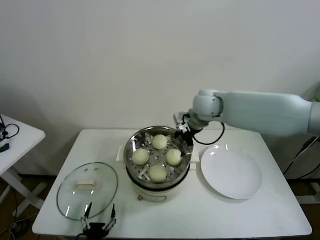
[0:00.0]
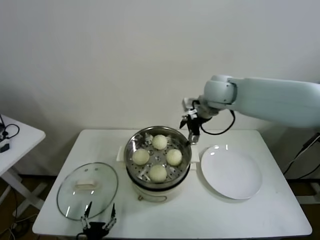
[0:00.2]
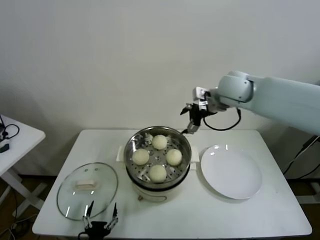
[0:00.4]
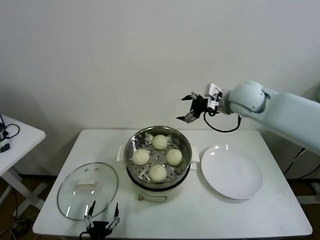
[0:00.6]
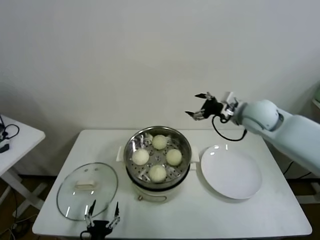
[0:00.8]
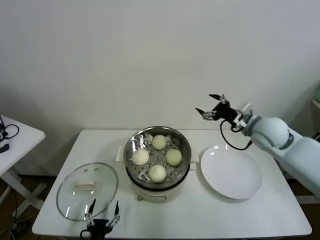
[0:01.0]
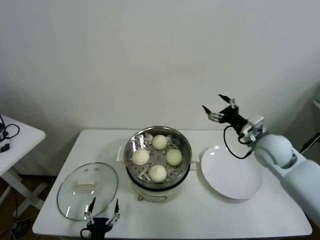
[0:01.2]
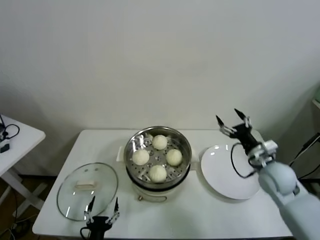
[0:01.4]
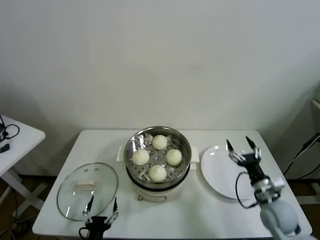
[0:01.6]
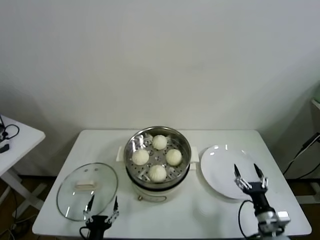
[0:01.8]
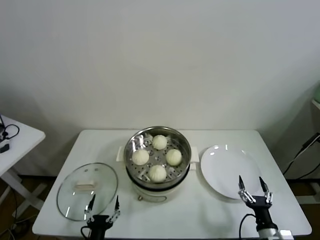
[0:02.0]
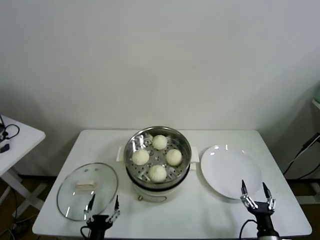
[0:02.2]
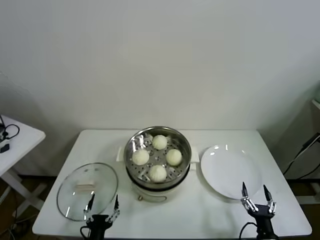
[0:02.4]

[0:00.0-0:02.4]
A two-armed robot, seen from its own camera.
Task of the whole recording: take steamed baozi put them in steamer.
0:00.0 to 0:01.2: The right gripper heads to the right, backward and downward, covering approximately 25 cm.
0:01.2 to 0:02.4: The right gripper is displaced backward and downward by approximately 40 cm.

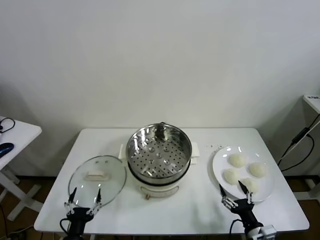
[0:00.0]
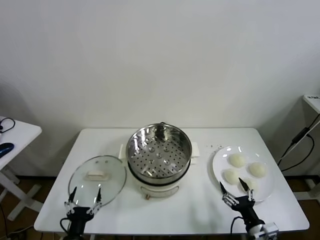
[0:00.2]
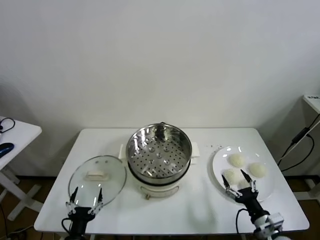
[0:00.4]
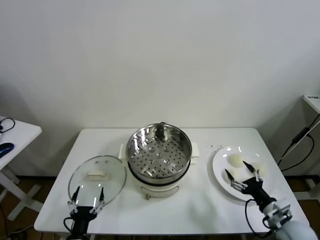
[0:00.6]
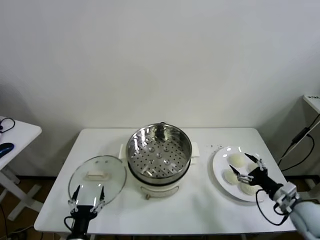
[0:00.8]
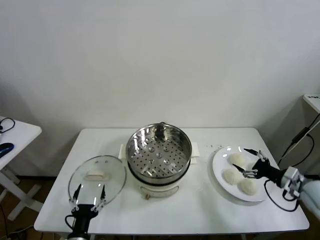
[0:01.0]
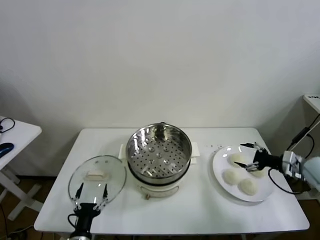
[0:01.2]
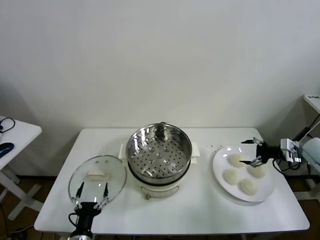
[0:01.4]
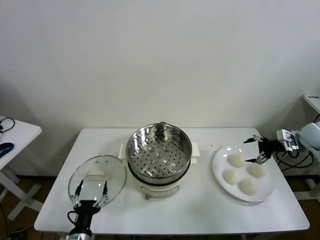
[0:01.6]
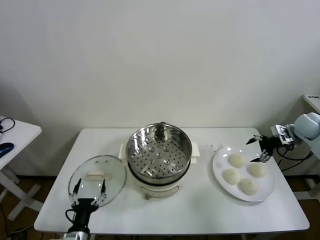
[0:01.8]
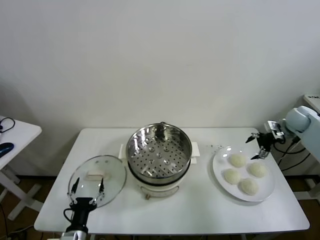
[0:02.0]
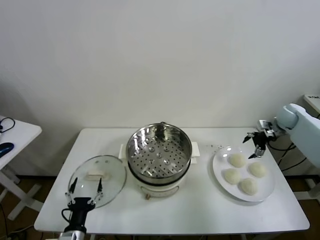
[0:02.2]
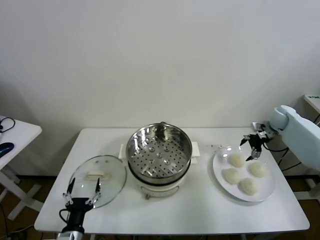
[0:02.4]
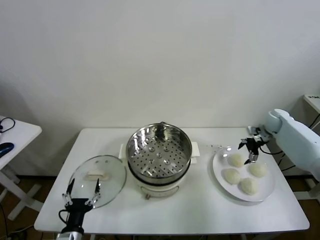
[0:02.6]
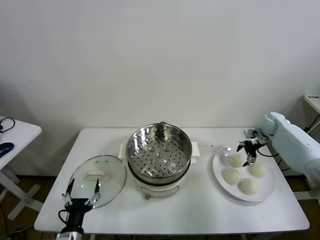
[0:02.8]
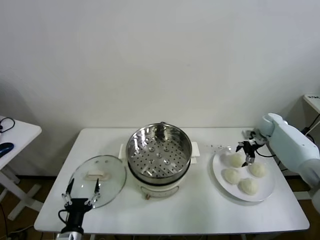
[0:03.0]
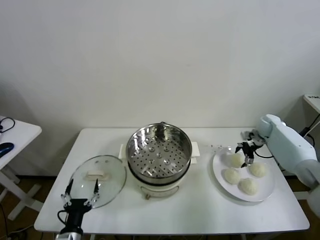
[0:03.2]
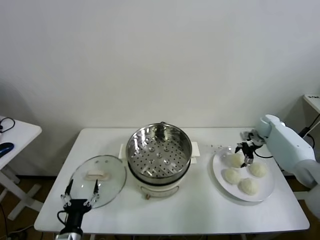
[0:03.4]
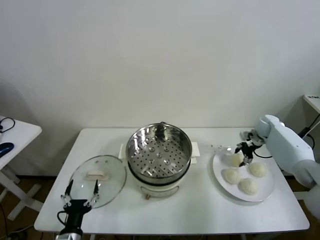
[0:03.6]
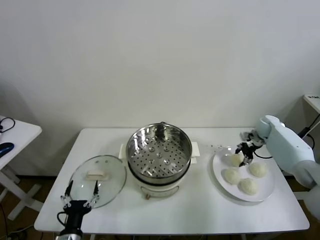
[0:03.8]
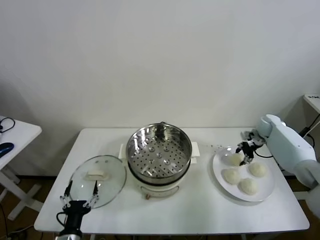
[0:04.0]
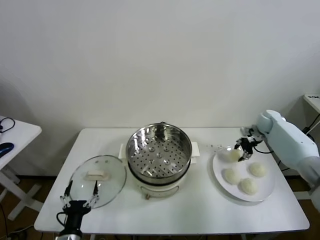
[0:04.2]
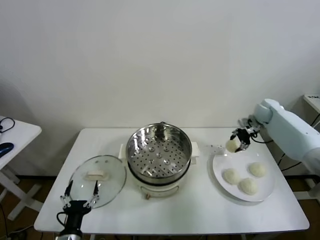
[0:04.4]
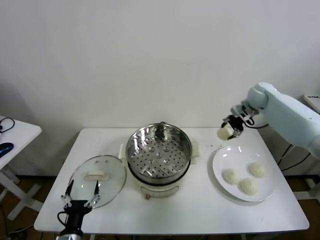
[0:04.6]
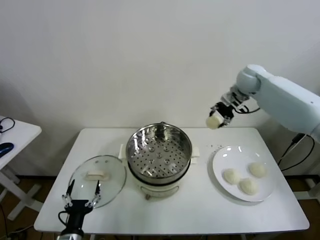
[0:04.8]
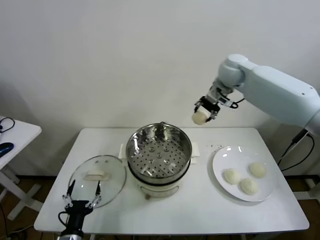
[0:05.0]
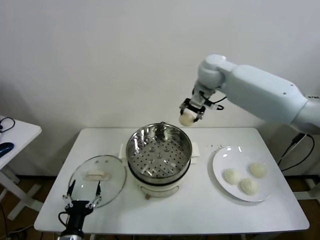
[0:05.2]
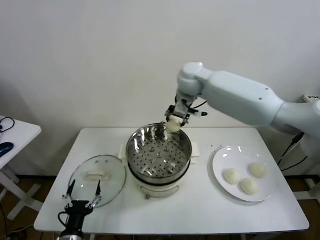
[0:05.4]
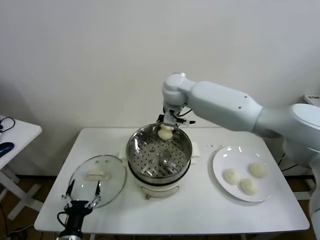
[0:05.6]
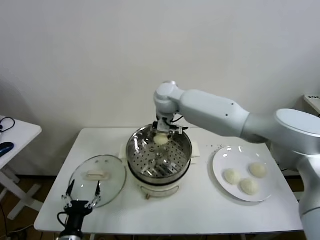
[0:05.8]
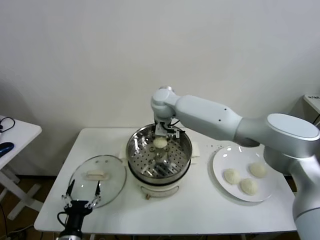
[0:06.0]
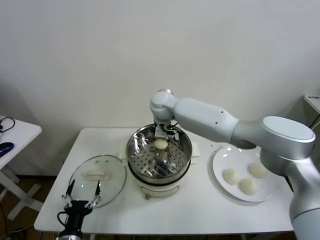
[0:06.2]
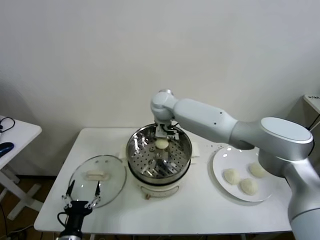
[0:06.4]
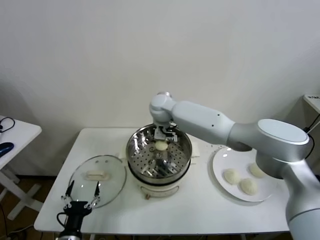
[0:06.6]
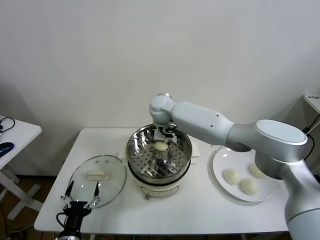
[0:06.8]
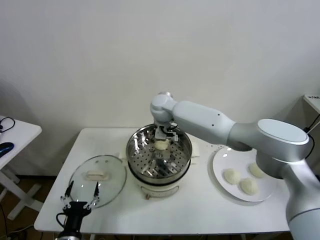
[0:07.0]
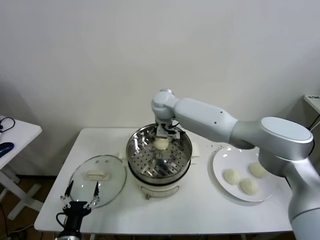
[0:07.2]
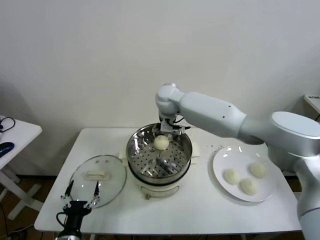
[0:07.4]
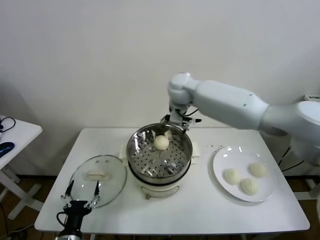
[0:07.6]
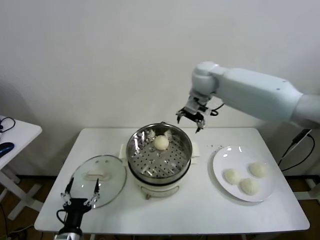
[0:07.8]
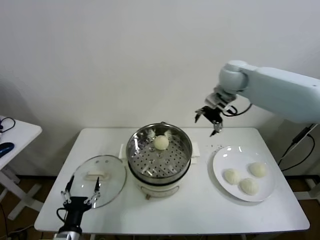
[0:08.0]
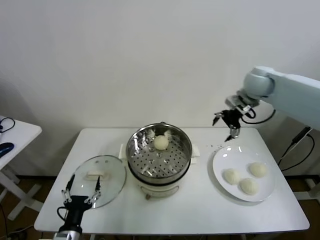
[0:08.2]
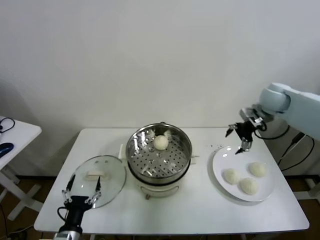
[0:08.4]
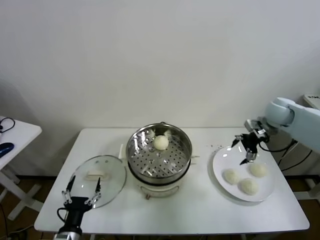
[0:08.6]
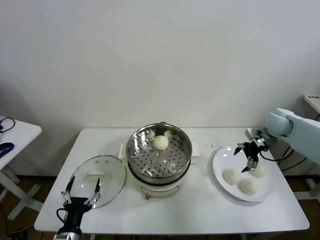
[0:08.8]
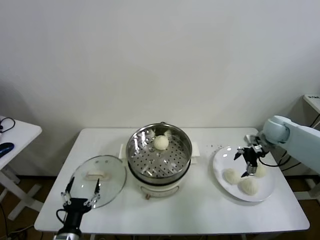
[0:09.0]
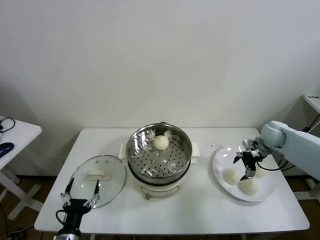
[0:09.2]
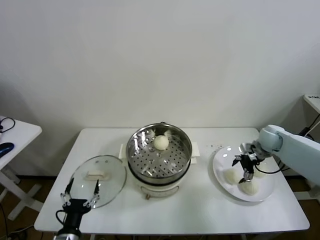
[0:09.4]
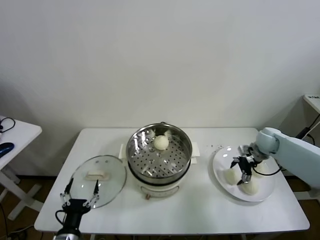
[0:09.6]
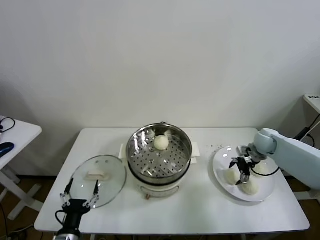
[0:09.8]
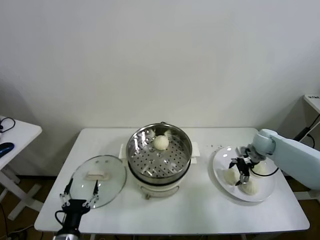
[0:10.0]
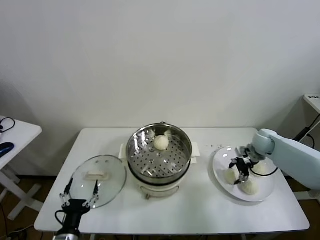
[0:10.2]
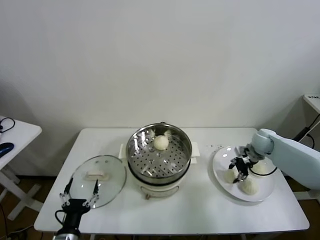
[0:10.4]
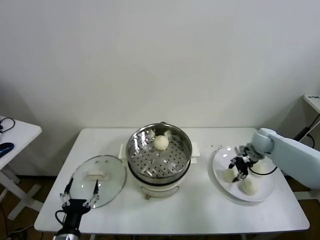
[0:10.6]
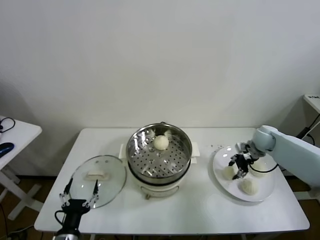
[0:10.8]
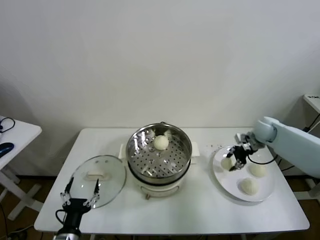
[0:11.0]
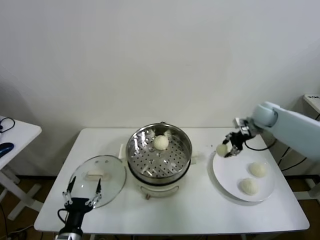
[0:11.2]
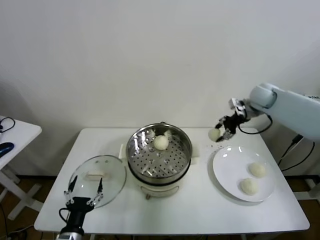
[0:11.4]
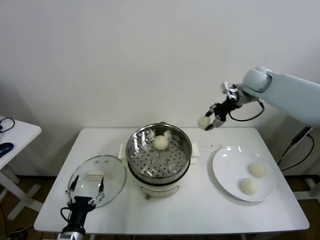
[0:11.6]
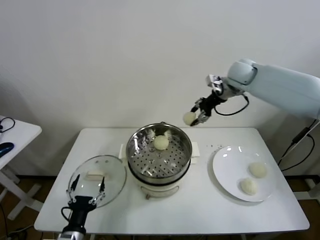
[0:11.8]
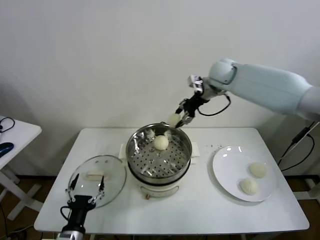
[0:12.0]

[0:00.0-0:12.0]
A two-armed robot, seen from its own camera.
Task of the whole recording: take steamed baozi put them in steamer.
Step, 0:00.0 to 0:03.4: Grasp the baozi in the plate with right gripper.
Step, 0:03.6 to 0:07.0: Place the baozi on the steamer with right gripper.
Step, 0:07.2 to 0:10.2: Grasp the baozi in the plate with right gripper.
0:01.6 to 0:03.0: The right gripper travels forward, downward and to the left by some 15 cm.
0:03.0 to 0:04.4: The right gripper goes some 10 cm upward and to the left, and closes up.
0:04.4 to 0:06.0: The right gripper heads to the left, covering approximately 40 cm.
0:06.0 to 0:07.6: The right gripper moves to the right and upward, about 10 cm, and opens.
0:07.6 to 0:09.0: The right gripper moves to the right and downward, some 35 cm.
0:09.0 to 0:10.4: The right gripper shifts roughly 5 cm downward, and closes its fingers.
0:10.4 to 0:12.0: The right gripper goes some 35 cm upward and to the left.

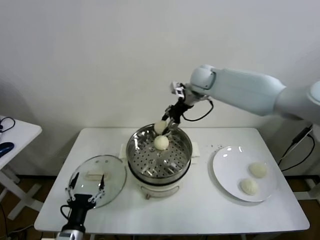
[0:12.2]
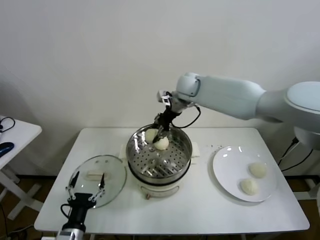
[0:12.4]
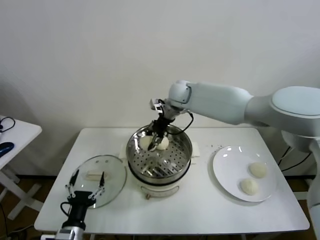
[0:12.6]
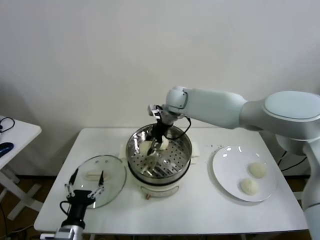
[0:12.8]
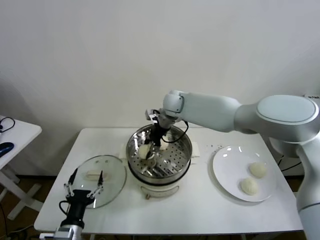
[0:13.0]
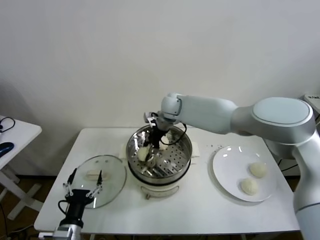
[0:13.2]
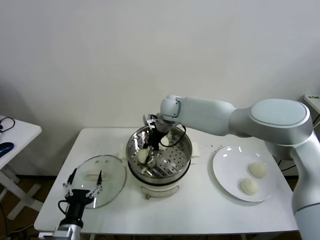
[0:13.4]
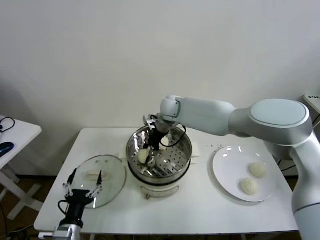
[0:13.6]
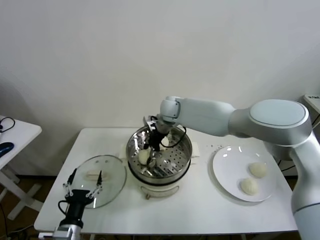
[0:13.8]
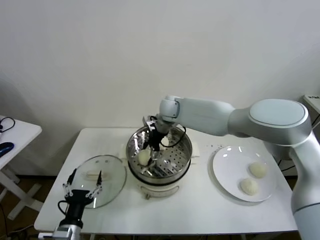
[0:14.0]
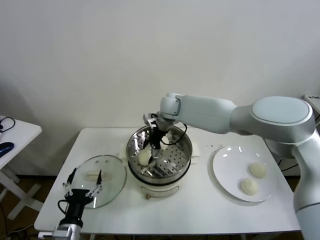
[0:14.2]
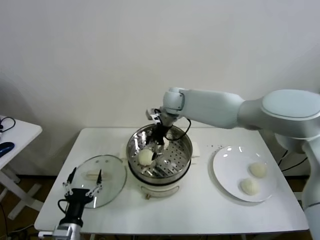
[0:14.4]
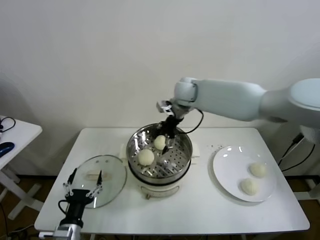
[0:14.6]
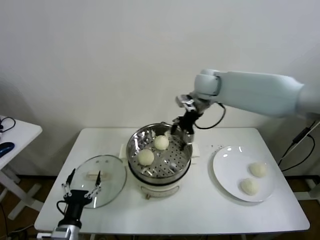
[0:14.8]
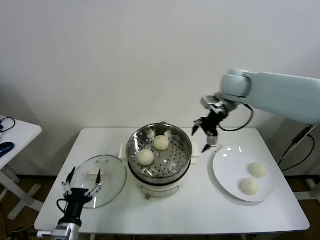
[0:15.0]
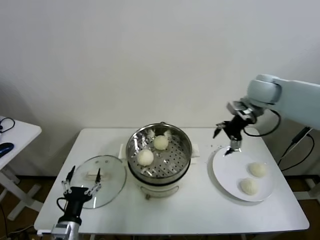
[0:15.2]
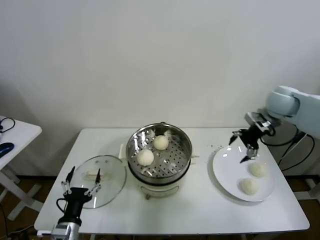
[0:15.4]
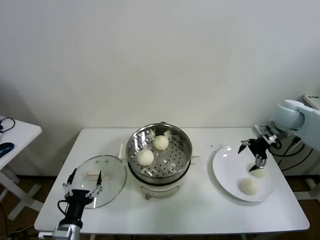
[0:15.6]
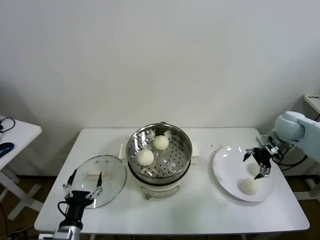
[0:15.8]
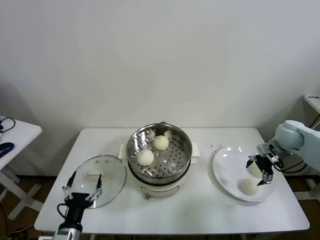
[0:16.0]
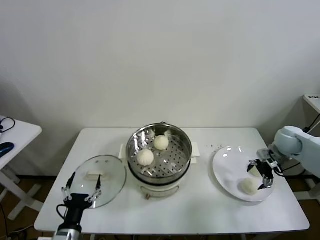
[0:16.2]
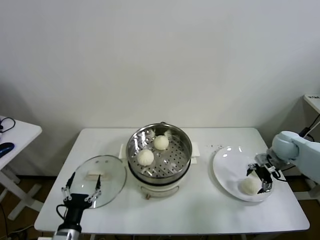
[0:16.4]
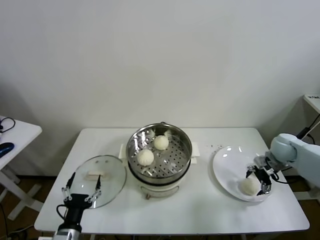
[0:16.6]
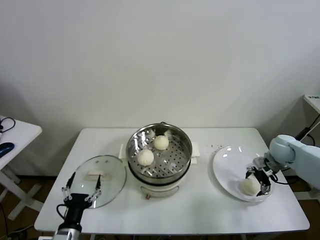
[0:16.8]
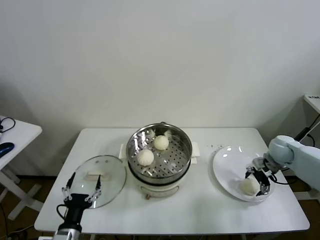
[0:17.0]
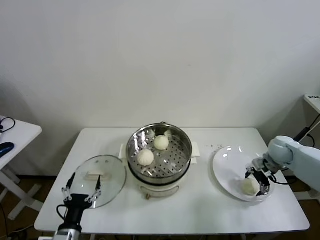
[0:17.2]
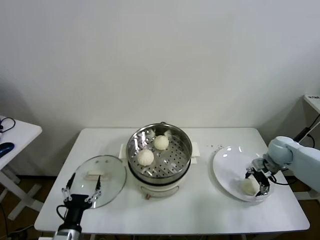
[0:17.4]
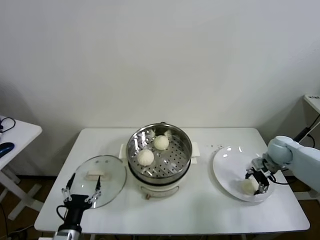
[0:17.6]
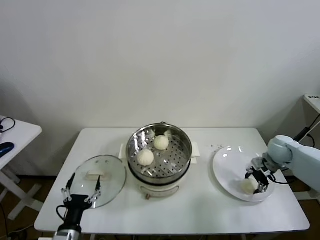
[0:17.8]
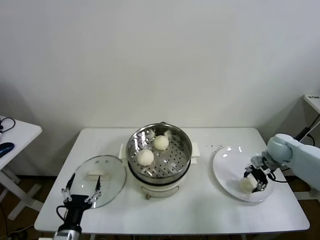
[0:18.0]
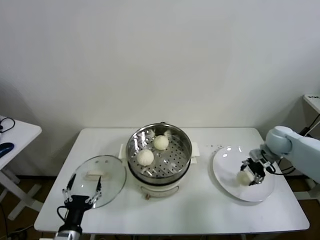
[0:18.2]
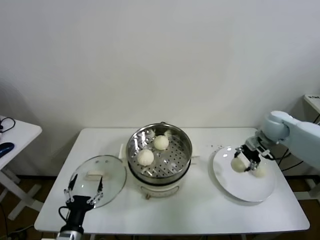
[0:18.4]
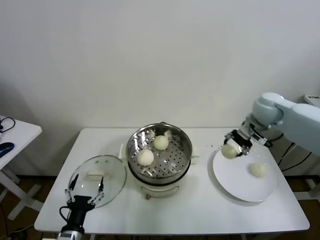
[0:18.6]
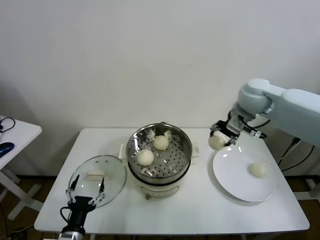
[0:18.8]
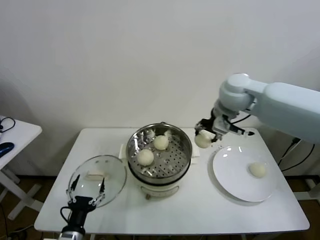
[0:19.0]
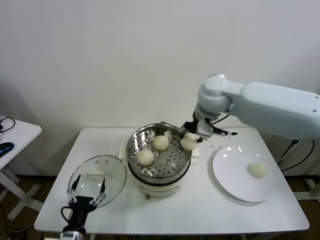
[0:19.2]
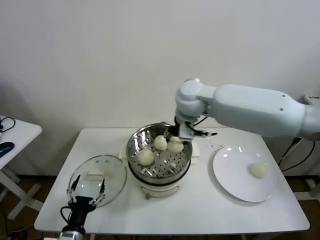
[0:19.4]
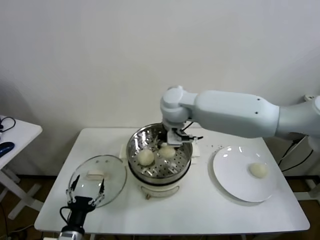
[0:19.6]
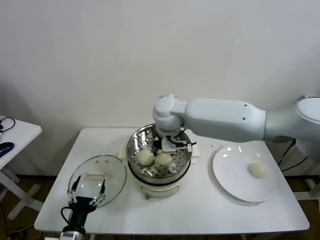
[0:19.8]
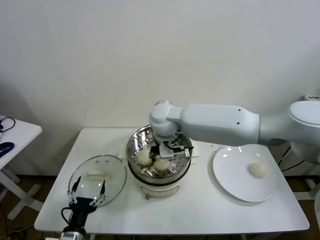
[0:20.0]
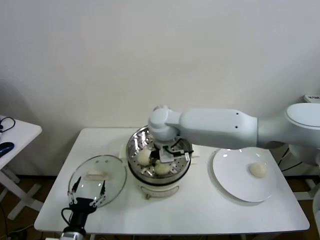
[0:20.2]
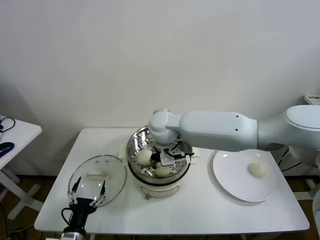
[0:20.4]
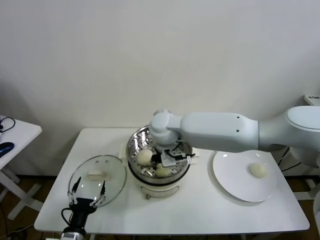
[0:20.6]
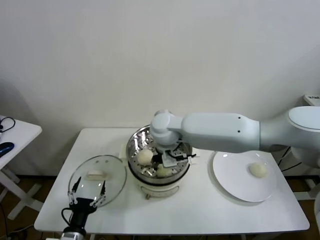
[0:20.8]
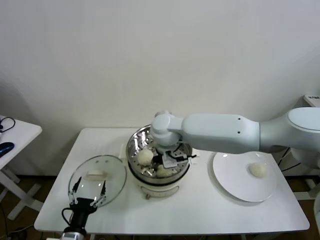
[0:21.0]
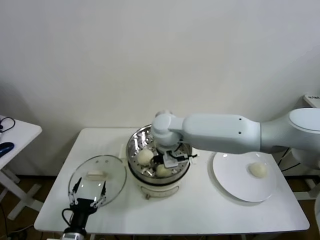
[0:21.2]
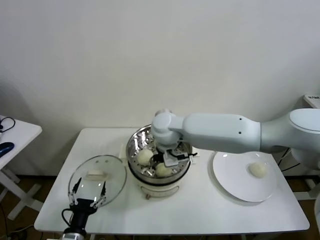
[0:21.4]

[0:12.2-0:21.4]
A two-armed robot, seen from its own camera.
Task of the whole recording: take steamed baozi put them in steamer.
Step, 0:14.2 to 0:17.6: Grasp the baozi in the plate with right gripper.
Step, 0:17.8 to 0:21.2: Place the baozi on the steamer with right gripper.
0:12.2 to 0:13.8: The right gripper shifts some 15 cm downward and to the left, and opens up.
0:13.8 to 0:15.2: The right gripper moves to the right, approximately 30 cm, and opens.
0:15.2 to 0:16.8: The right gripper shifts some 25 cm downward and to the right.
0:16.8 to 0:18.4: The right gripper goes about 10 cm upward and to the left, and closes its fingers.
0:18.4 to 0:19.8: The right gripper travels to the left by approximately 35 cm.
0:19.8 to 0:21.4: The right gripper opens.
